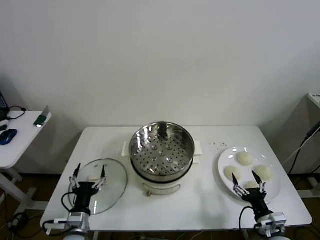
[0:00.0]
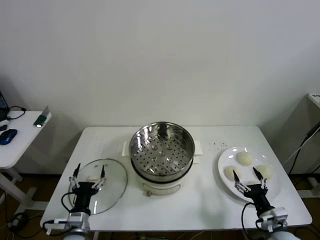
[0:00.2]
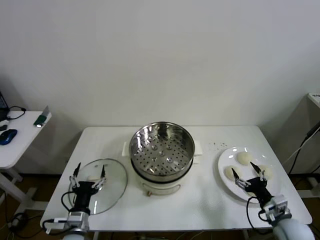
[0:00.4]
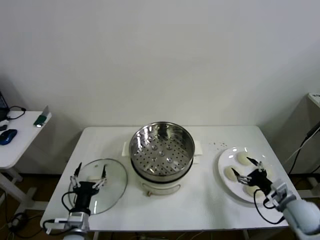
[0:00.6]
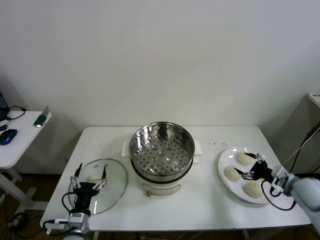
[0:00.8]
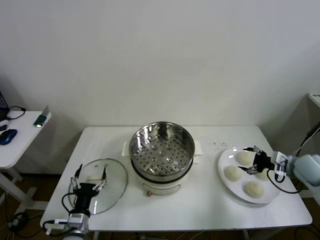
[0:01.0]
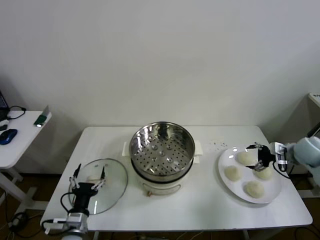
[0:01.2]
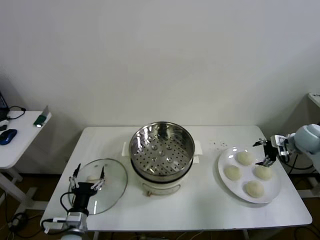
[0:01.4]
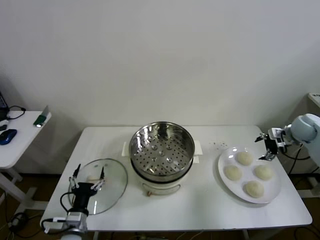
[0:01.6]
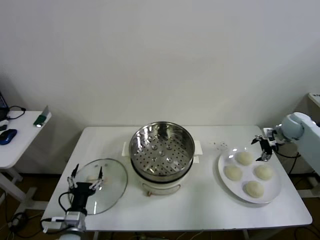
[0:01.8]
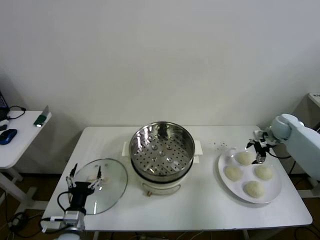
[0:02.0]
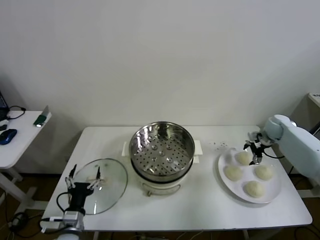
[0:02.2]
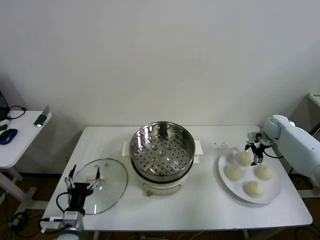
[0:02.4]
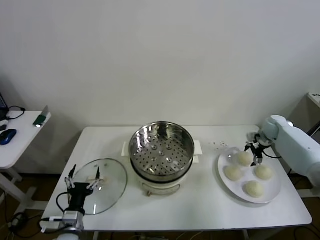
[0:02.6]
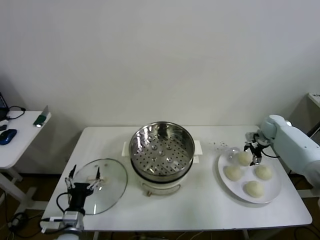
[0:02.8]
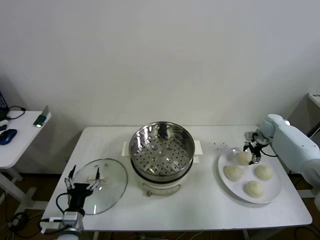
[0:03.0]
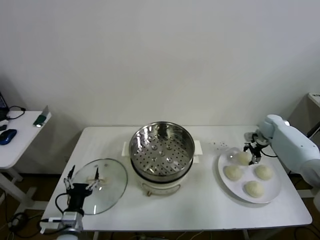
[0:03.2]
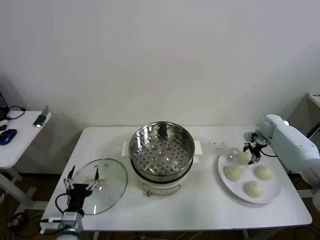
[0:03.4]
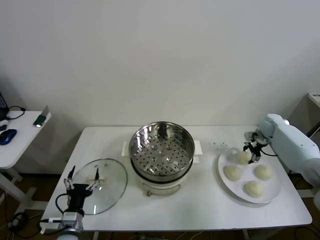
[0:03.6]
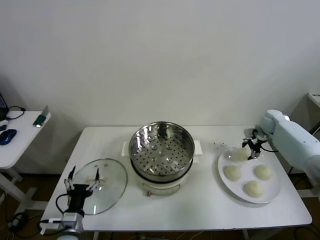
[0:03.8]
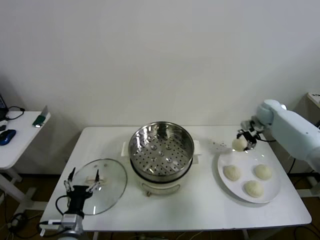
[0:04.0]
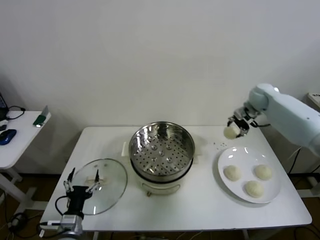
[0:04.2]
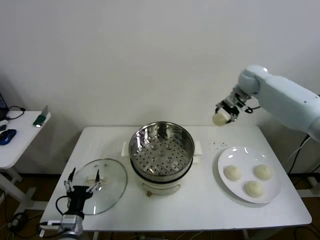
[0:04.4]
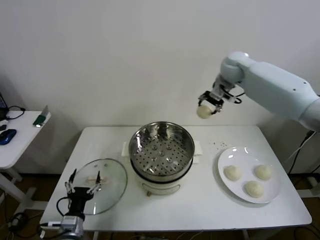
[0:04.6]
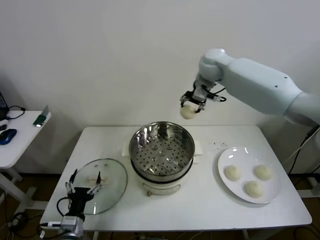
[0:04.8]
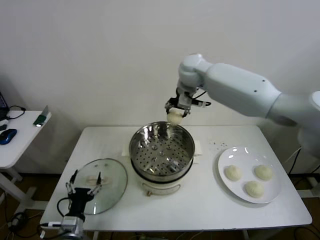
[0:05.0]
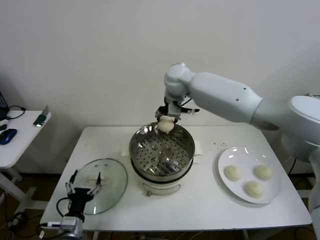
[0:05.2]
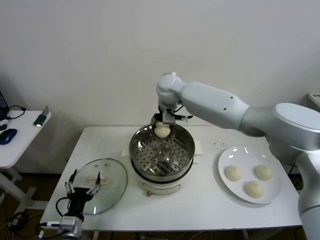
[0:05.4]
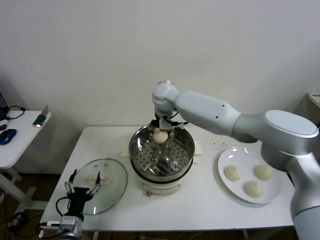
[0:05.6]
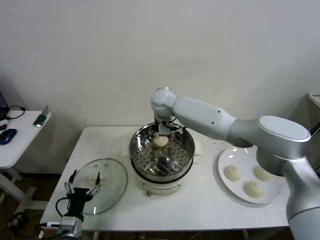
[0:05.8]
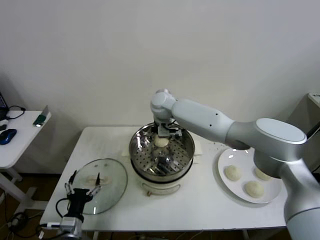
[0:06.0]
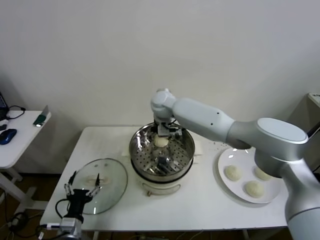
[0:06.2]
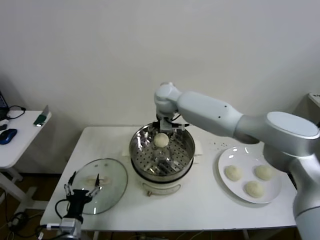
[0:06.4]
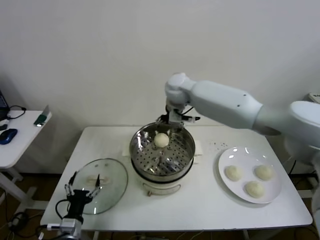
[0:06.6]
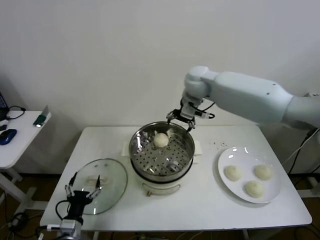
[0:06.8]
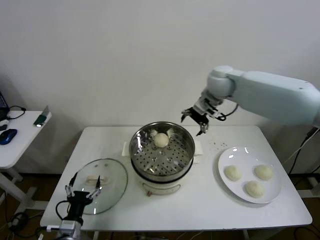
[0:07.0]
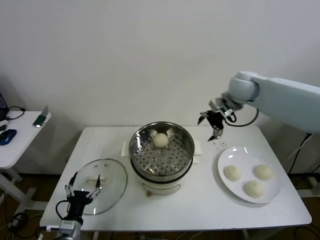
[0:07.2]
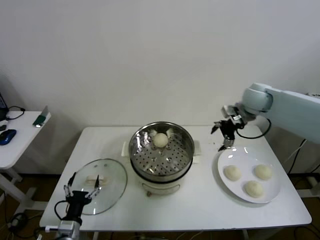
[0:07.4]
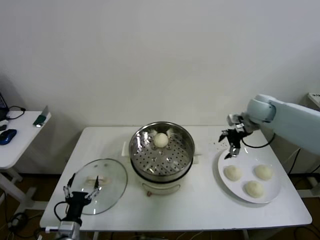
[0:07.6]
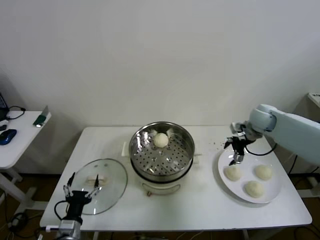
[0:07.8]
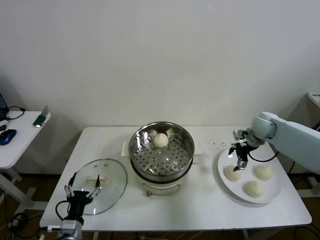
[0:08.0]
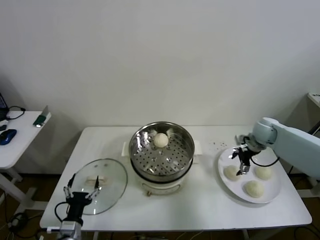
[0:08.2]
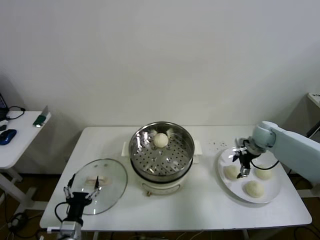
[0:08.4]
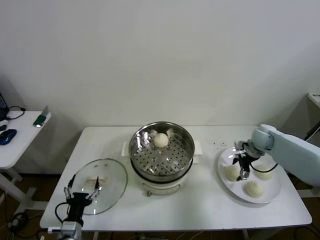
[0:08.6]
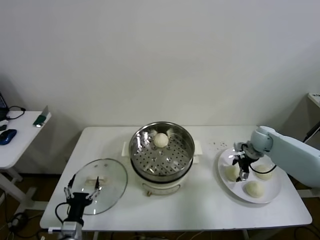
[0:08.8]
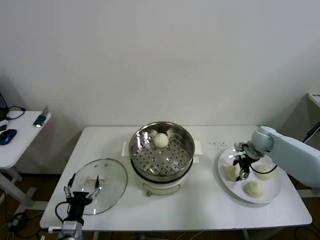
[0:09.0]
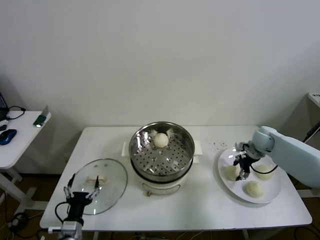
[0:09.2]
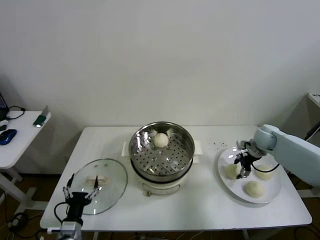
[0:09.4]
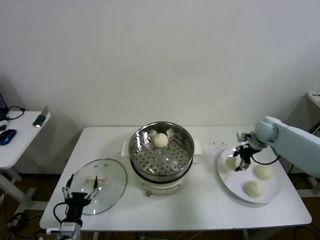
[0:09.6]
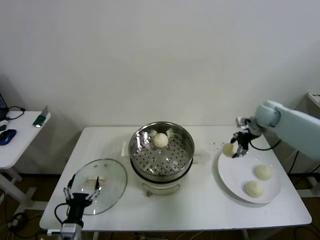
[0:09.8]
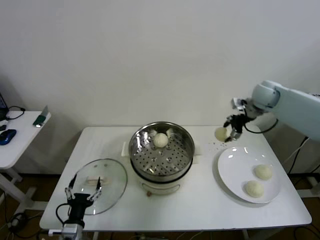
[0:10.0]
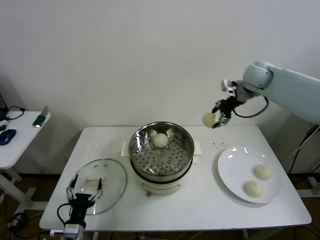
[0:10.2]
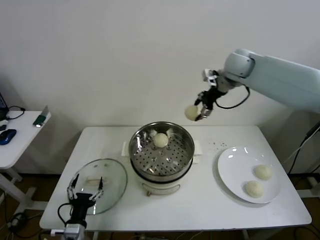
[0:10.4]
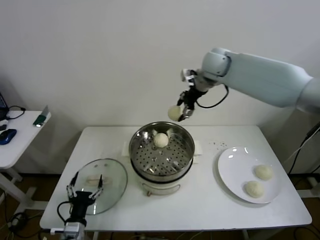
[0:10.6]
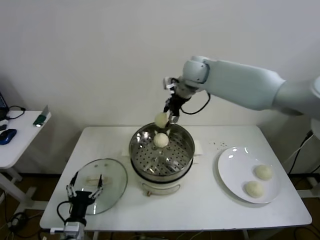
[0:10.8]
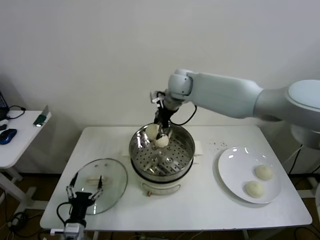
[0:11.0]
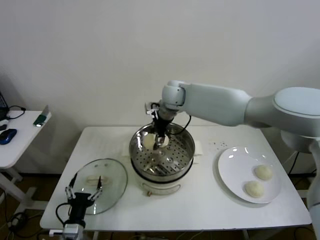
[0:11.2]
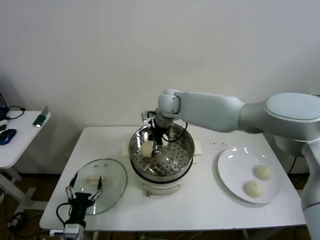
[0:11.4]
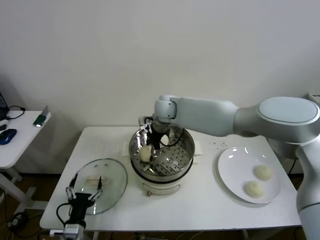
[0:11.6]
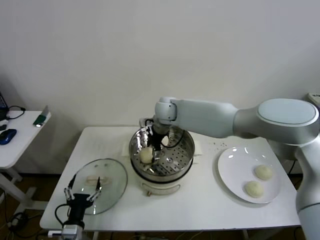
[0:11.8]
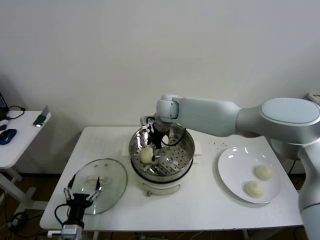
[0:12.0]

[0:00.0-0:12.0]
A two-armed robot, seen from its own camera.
Step, 0:00.0 to 0:03.4: Grasp the baozi in the plate with right gripper.
Step, 0:03.6 to 0:06.8: Place the baozi on the steamer with right gripper.
Step, 0:07.0 to 0:08.8: Grasp the baozi in the plate with right gripper.
0:01.6 to 0:03.0: The right gripper shifts roughly 10 cm downward and forward, and closes its fingers.
0:03.0 to 0:04.4: The right gripper travels upward and to the left by roughly 30 cm, and closes up.
0:04.4 to 0:06.0: The right gripper shifts about 30 cm to the left, and opens up.
0:06.0 to 0:07.6: The right gripper heads to the right, covering about 35 cm.
0:07.6 to 0:09.0: The right gripper is displaced downward by roughly 10 cm, and closes its fingers.
0:09.0 to 0:10.4: The right gripper heads upward and to the left, covering roughly 35 cm.
0:10.4 to 0:12.0: The right gripper travels to the left and downward by about 25 cm, and opens.

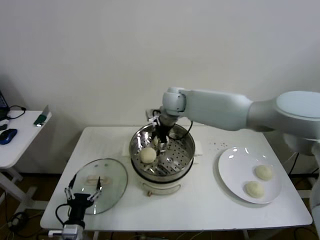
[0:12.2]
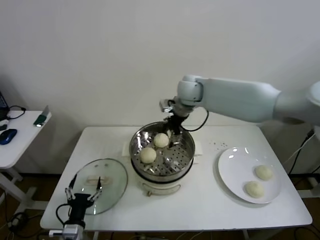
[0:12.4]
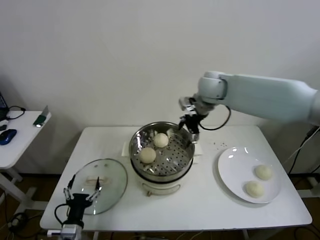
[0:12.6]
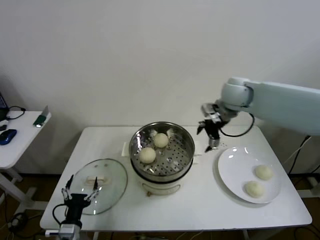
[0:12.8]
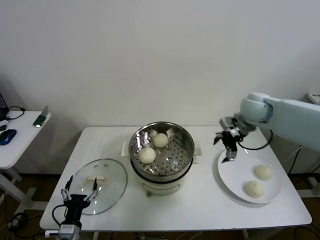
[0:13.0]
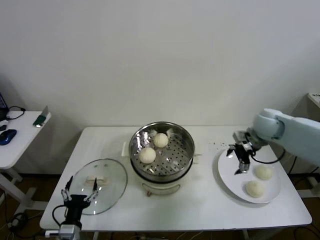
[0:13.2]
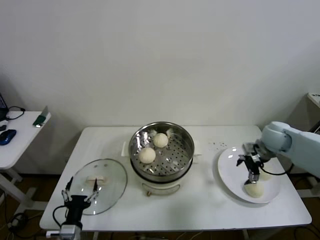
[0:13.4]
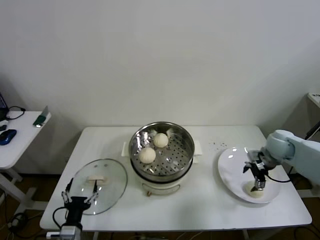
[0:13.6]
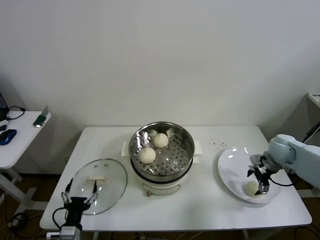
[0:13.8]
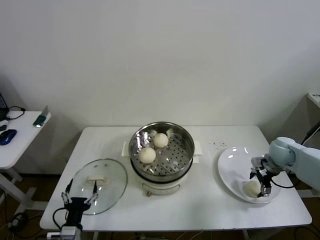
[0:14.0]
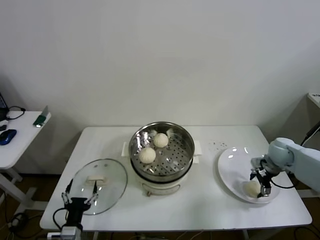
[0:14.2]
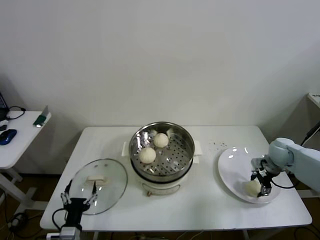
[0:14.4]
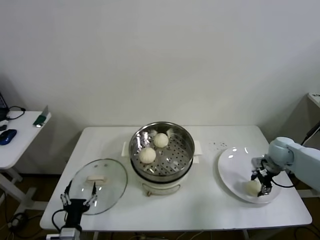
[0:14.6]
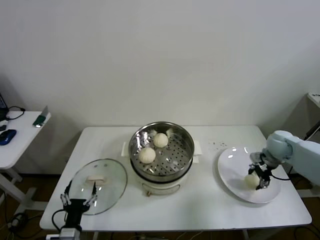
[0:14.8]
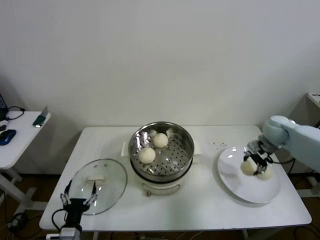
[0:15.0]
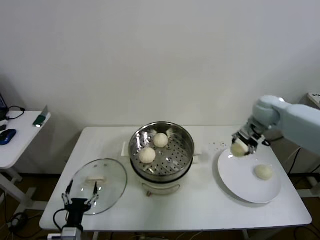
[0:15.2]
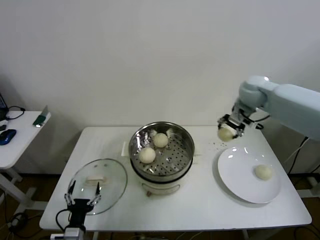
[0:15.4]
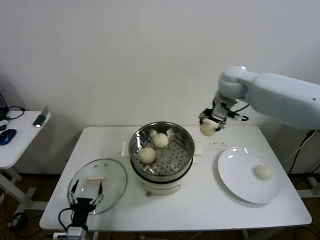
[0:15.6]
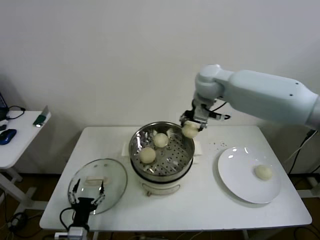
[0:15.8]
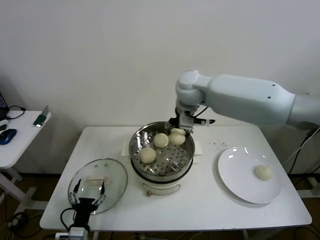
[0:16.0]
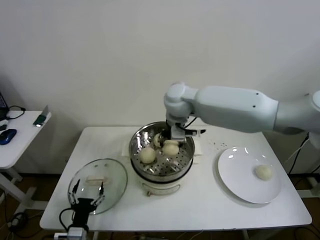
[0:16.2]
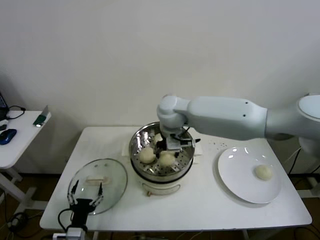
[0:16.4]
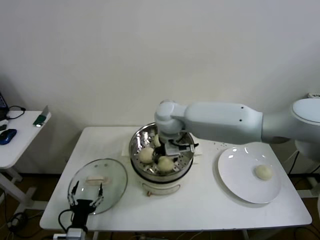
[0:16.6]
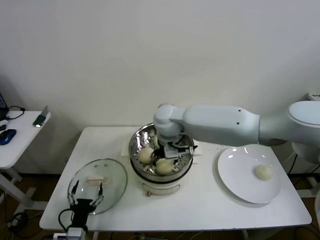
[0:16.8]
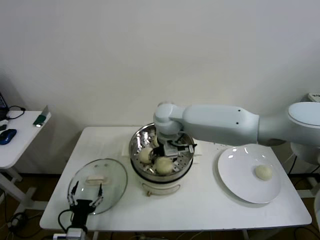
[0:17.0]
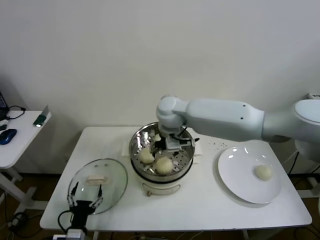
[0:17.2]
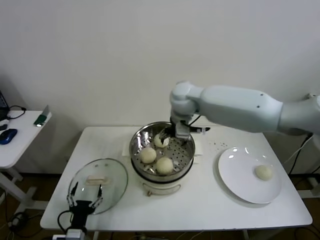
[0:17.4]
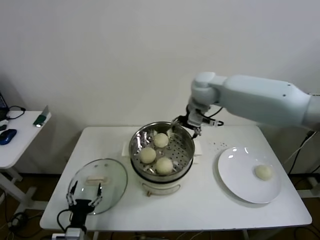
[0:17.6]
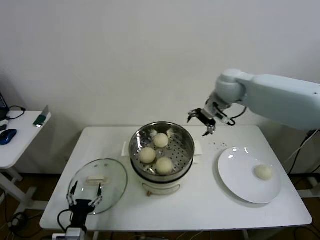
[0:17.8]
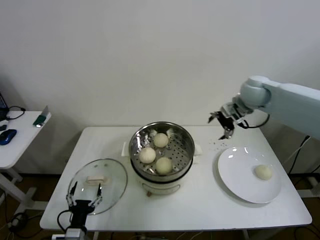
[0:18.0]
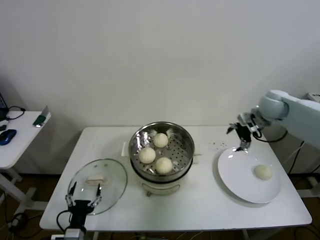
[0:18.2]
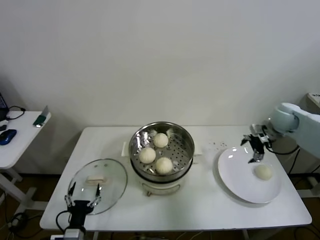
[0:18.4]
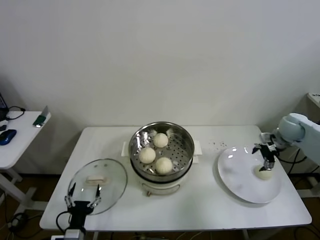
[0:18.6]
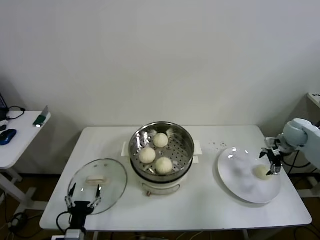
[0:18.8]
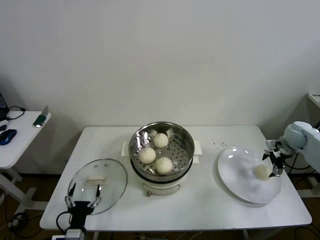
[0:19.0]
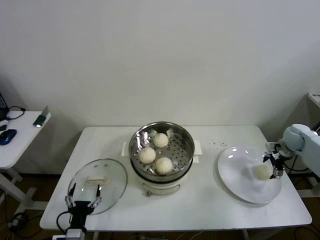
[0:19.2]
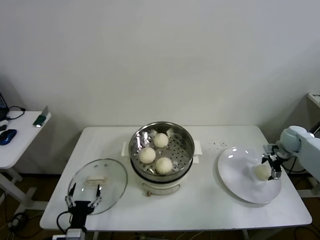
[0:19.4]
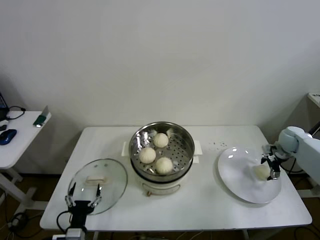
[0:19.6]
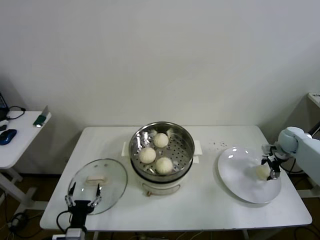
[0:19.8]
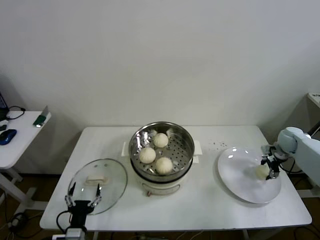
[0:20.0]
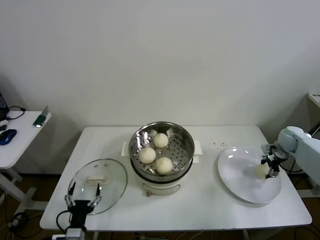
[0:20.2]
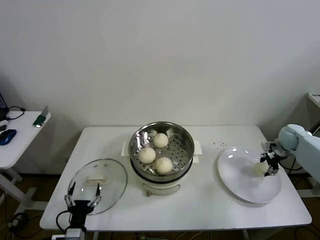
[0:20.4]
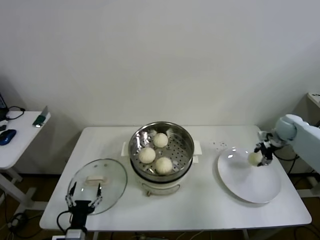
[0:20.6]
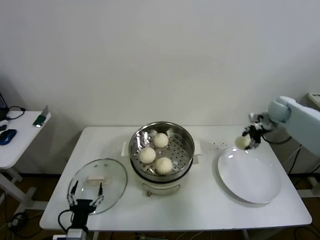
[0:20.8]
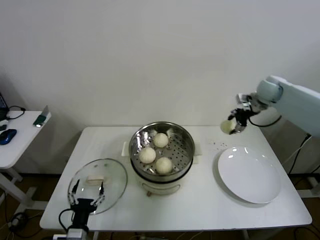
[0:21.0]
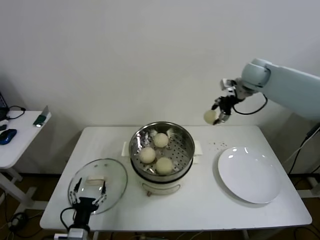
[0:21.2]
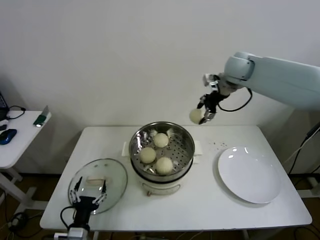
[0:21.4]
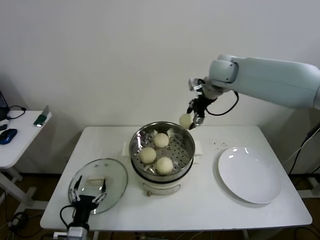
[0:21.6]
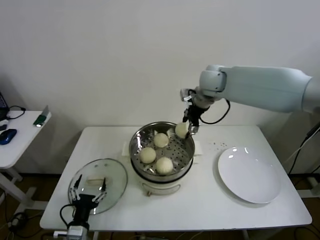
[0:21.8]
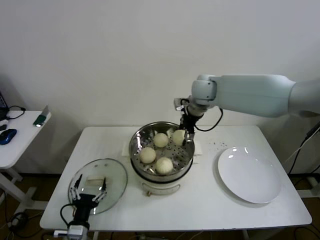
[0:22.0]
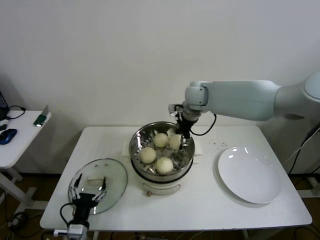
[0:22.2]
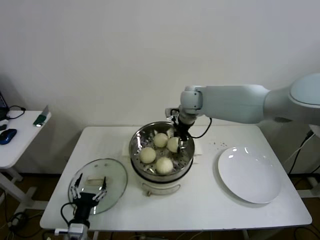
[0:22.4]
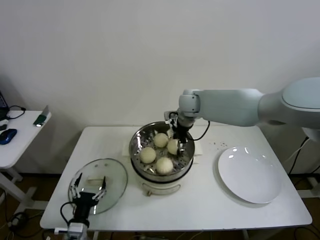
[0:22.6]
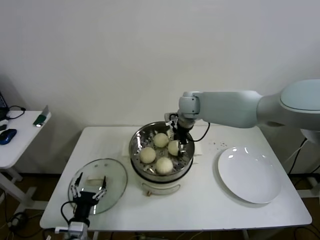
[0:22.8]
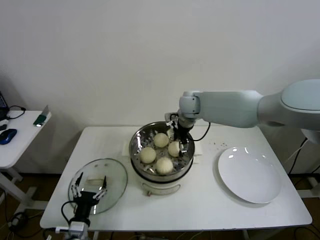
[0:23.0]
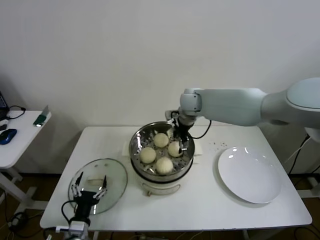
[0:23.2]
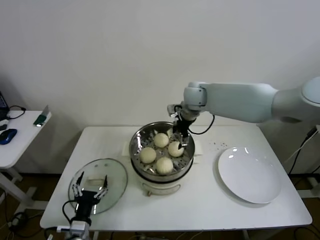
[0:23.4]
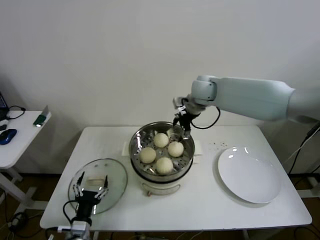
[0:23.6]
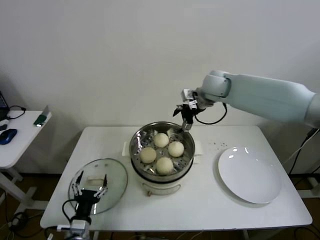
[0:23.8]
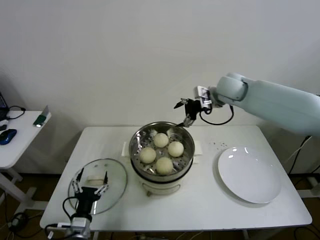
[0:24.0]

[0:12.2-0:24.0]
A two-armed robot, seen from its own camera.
Step, 0:12.4 to 0:14.6: Grasp the baozi in the plate with right gripper.
Step, 0:14.8 to 0:17.0: Place the baozi on the steamer with right gripper.
Step, 0:17.2 to 0:20.4: Grasp the baozi in the plate with right gripper.
Step, 0:20.6 to 0:23.4: Place the baozi on the steamer with right gripper.
0:12.2 to 0:13.6: The right gripper moves to the right and downward, approximately 40 cm.
0:13.6 to 0:15.2: The right gripper travels upward, forward and to the left by roughly 15 cm, and closes up.
0:15.2 to 0:16.6: The right gripper heads to the left, covering approximately 35 cm.
0:16.6 to 0:18.2: The right gripper travels to the right by some 35 cm, and opens.
0:18.2 to 0:19.6: The right gripper travels downward and to the right by some 20 cm.
0:19.6 to 0:21.0: The right gripper travels upward, to the left and forward by about 25 cm, and closes up.
0:21.0 to 0:22.6: The right gripper heads to the left, covering some 30 cm.
0:22.6 to 0:24.0: The right gripper shifts about 15 cm to the right and upward, and opens up.
